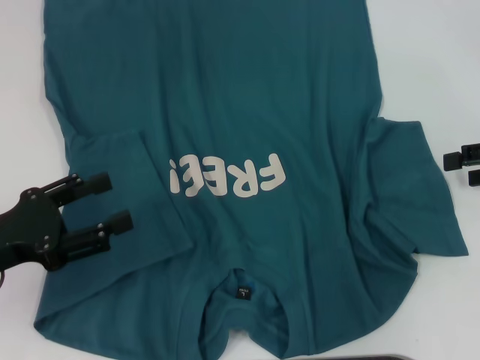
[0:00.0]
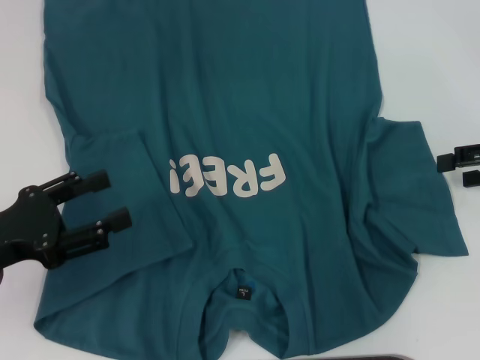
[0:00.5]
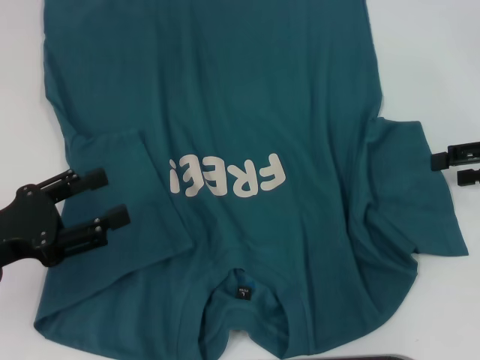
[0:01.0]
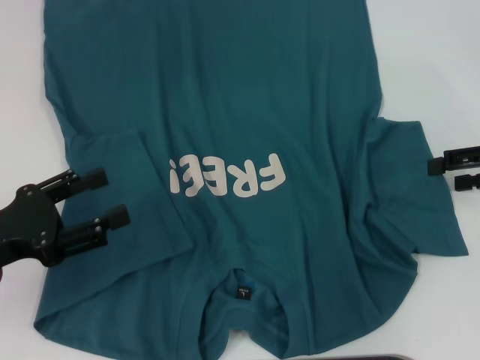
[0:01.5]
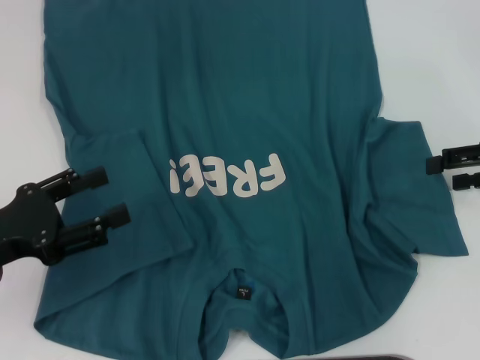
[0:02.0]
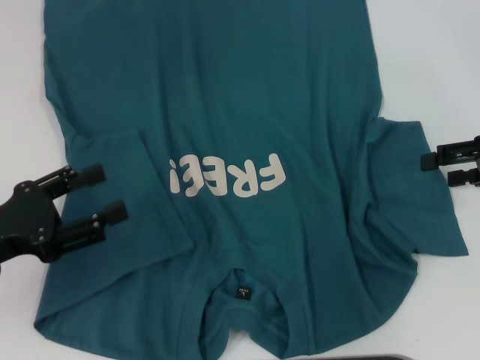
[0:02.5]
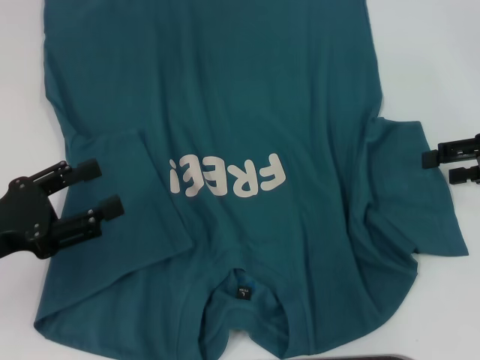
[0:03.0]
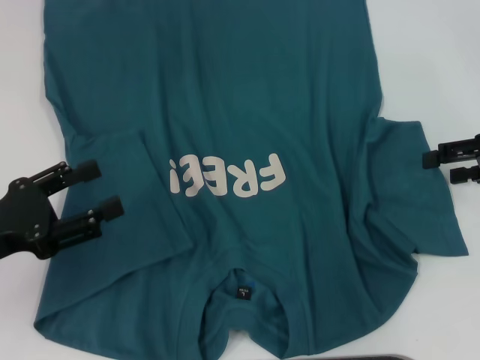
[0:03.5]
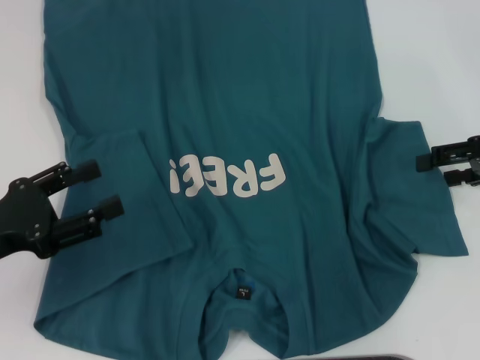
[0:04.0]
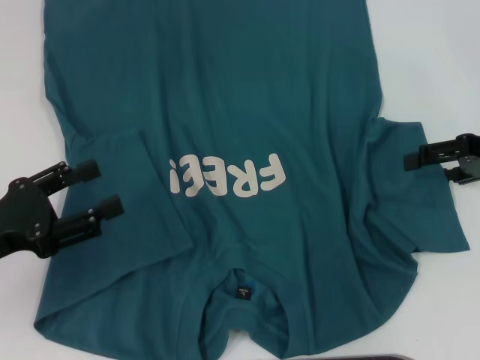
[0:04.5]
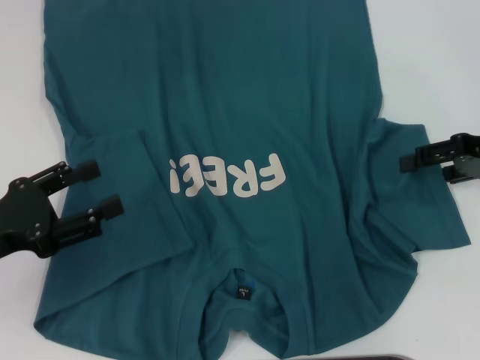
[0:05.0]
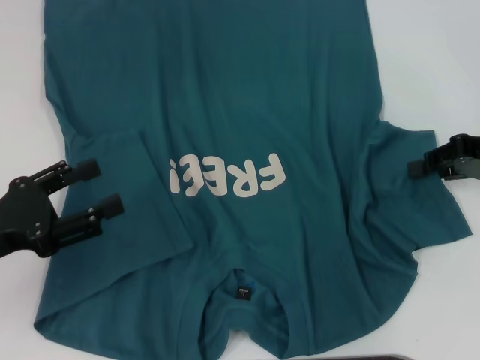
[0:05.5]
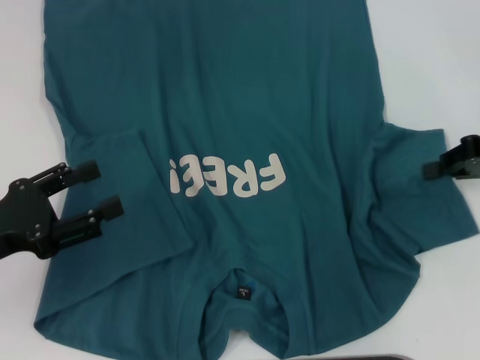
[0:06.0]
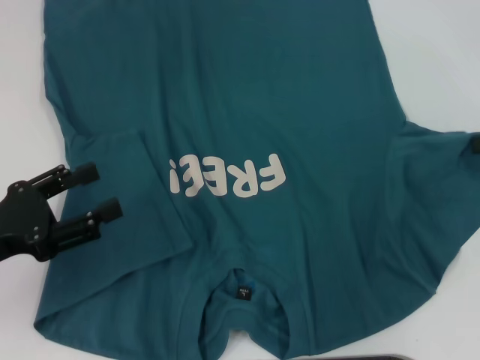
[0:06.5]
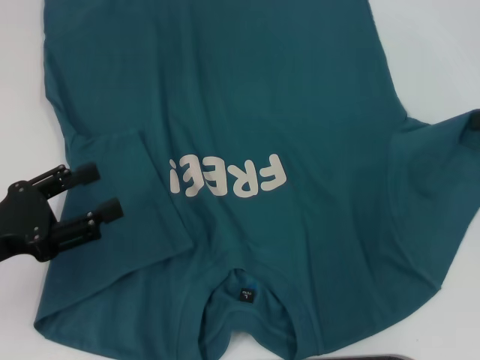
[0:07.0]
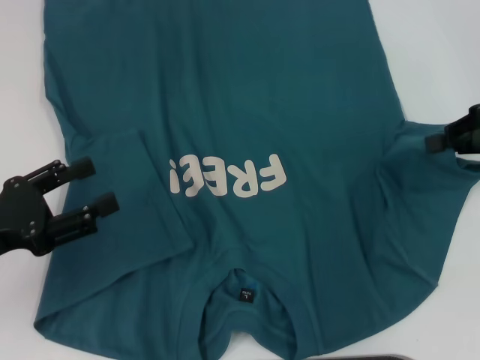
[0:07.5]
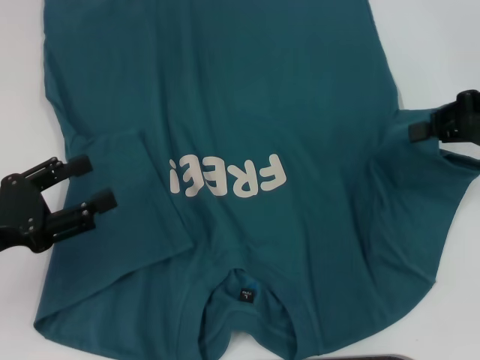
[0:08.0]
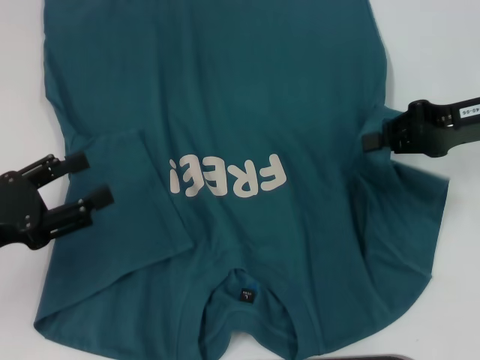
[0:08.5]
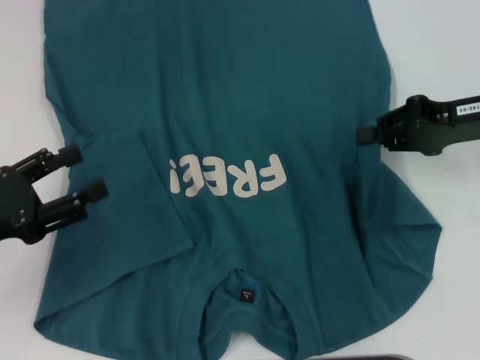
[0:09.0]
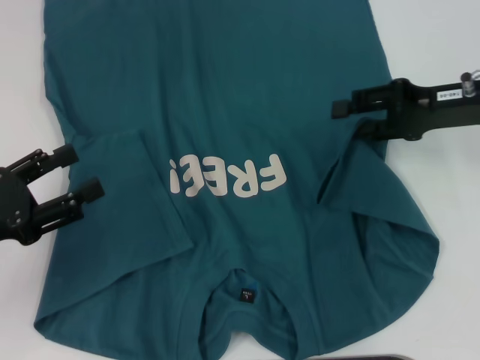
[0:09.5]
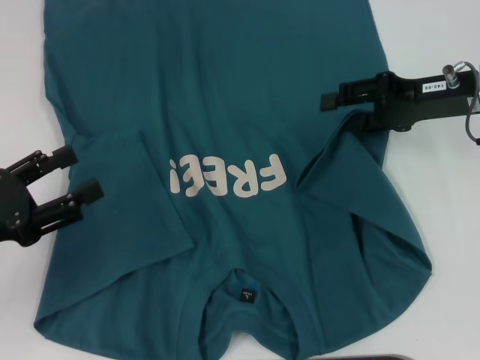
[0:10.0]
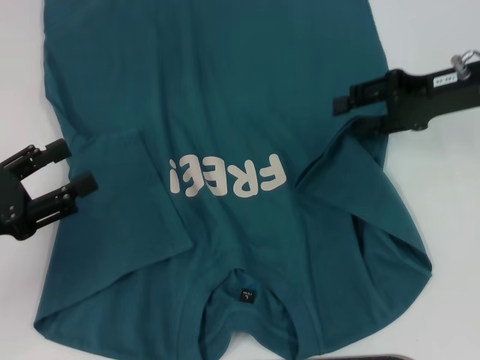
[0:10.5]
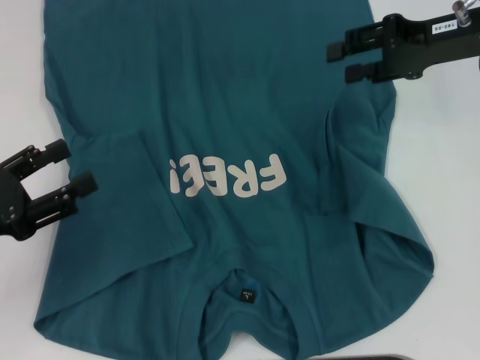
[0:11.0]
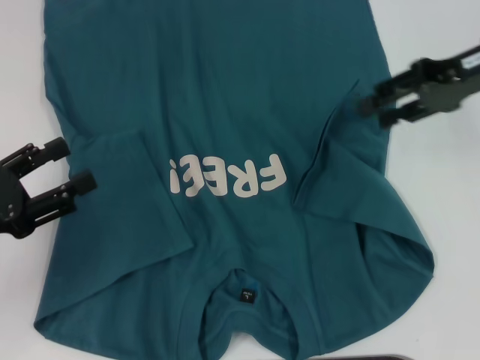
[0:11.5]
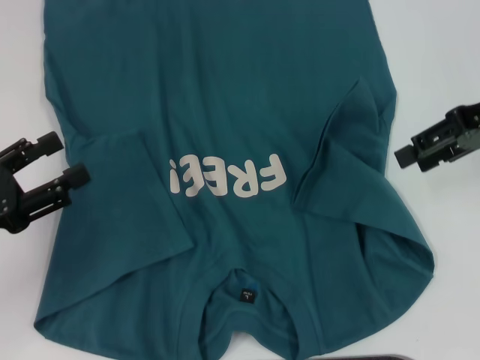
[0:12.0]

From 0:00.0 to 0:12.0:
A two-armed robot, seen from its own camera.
From 0:00.0 to 0:02.0: The grippers stay close to where they were, moving slightly.
From 0:02.0 to 0:04.0: The two grippers keep their place.
From 0:04.0 to 0:06.0: The right gripper closes its fingers.
From 0:06.0 to 0:08.0: The grippers stay close to where they were, moving slightly.
From 0:08.0 to 0:10.0: The right gripper moves to the left, roughly 5 cm, and opens.
From 0:10.0 to 0:12.0: The right gripper goes approximately 5 cm upward.

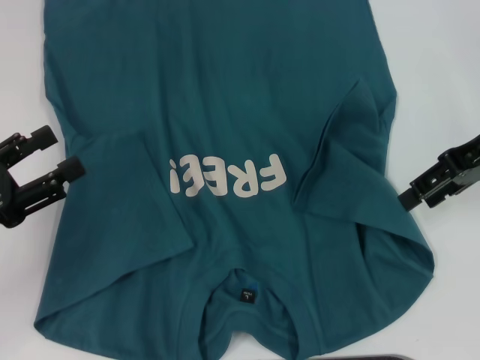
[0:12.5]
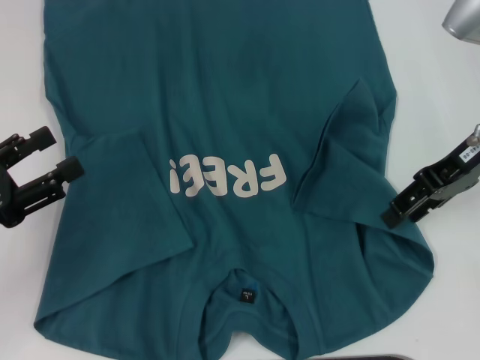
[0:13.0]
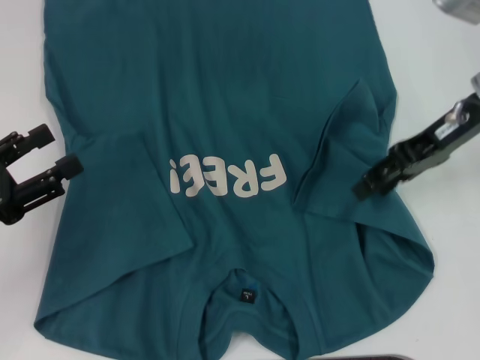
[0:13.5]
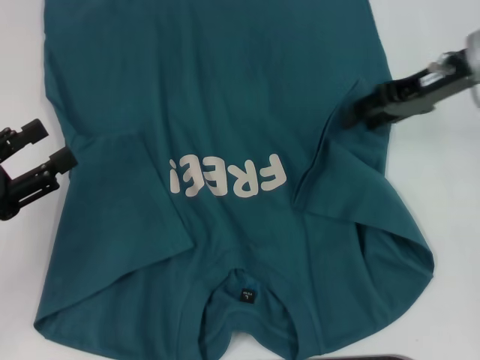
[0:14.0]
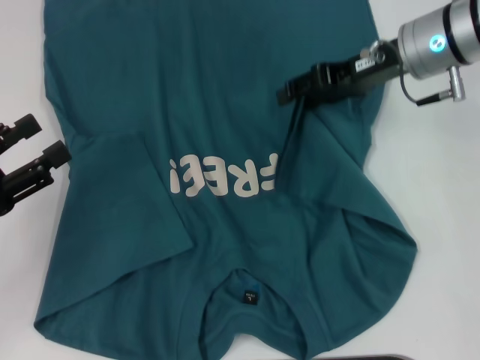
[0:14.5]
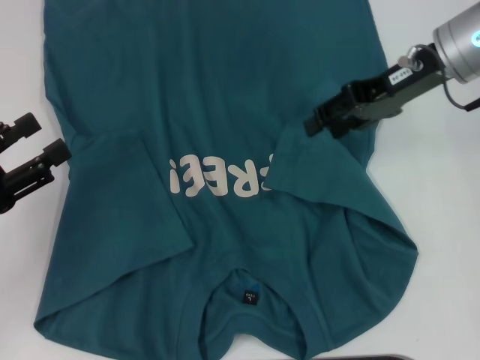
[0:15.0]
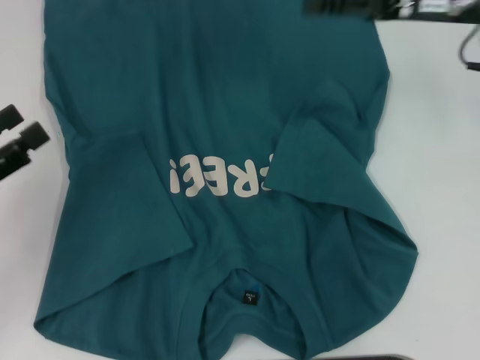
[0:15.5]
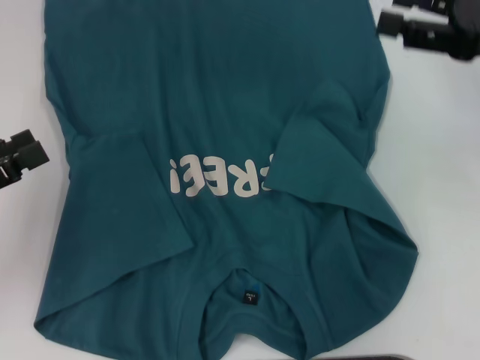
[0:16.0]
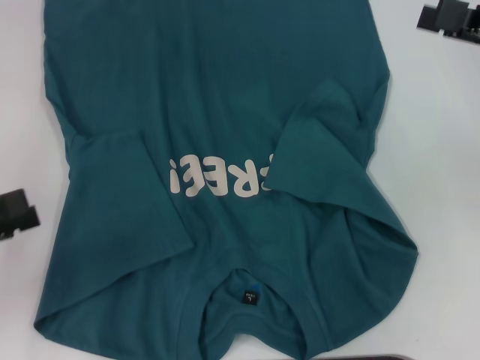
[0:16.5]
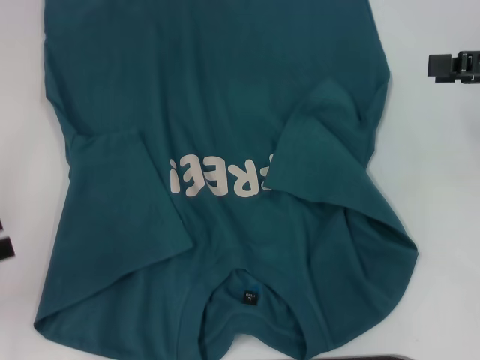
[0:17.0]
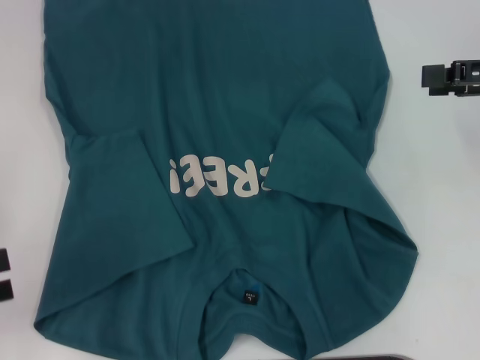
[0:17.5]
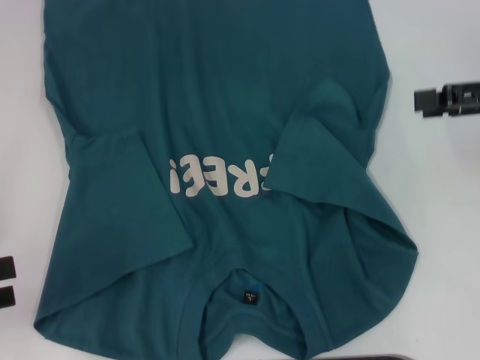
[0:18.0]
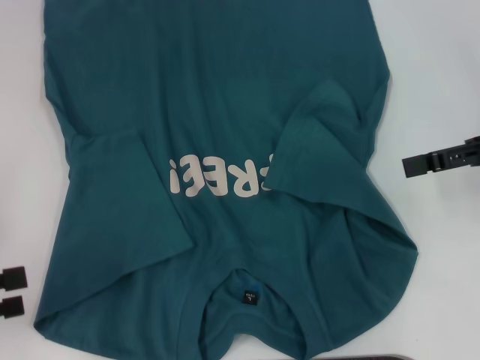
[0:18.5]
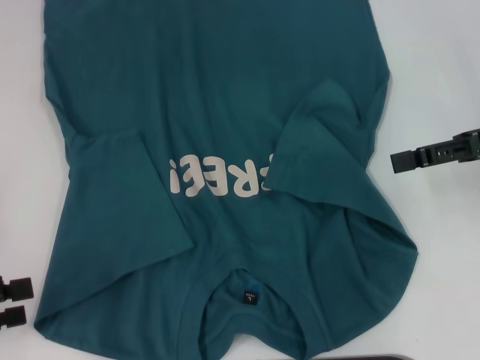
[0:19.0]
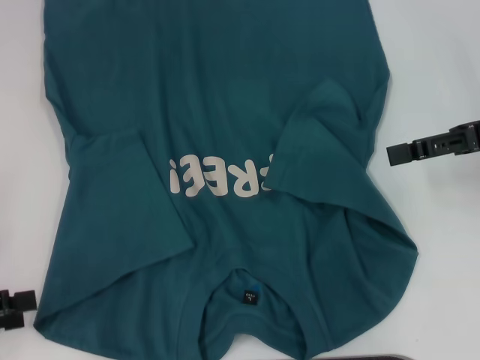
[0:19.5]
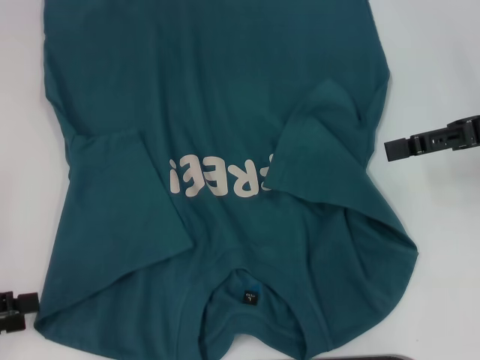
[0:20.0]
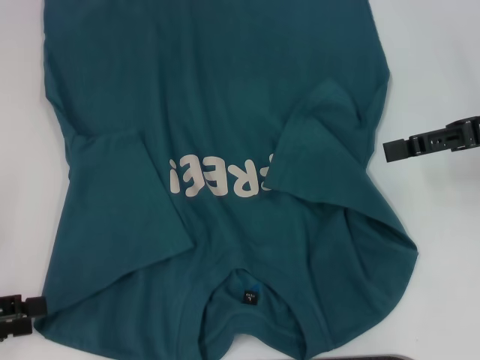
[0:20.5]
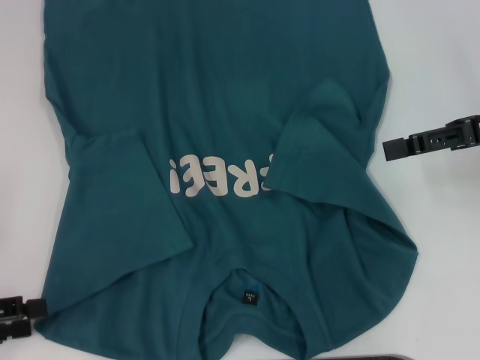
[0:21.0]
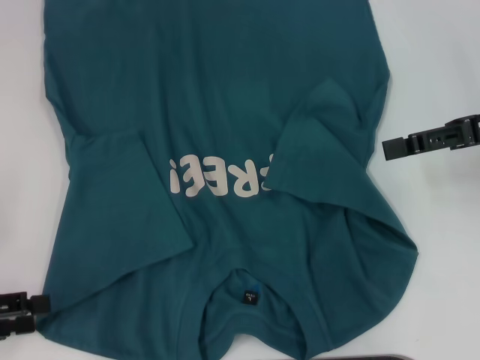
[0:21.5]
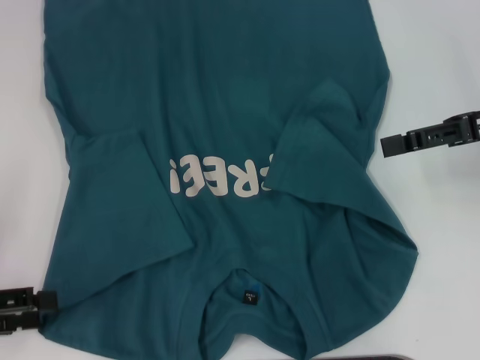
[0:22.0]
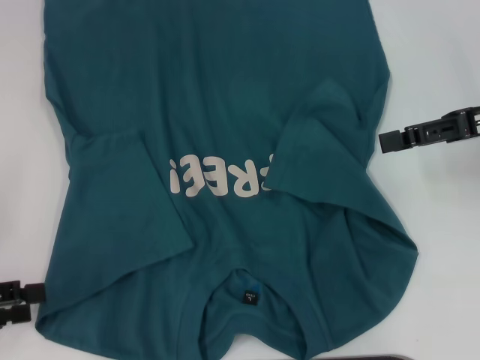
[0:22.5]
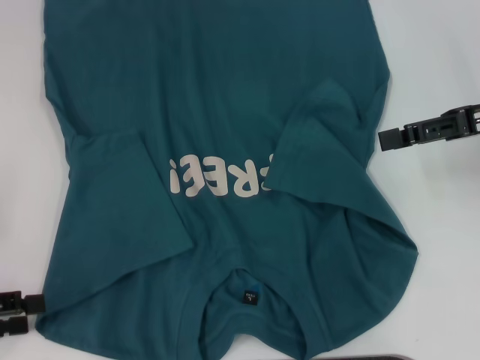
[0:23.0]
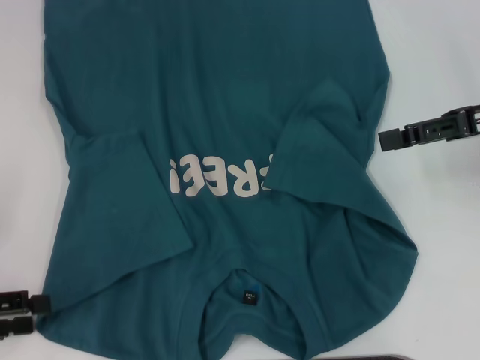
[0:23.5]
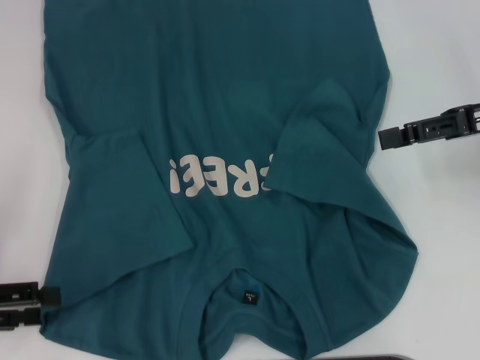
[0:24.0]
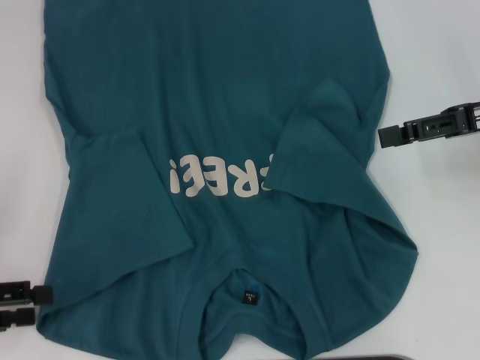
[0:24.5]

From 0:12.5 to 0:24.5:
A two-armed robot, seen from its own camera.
From 0:12.5 to 0:14.5: The right gripper heads to the left and forward, covering roughly 10 cm.
From 0:14.5 to 0:16.5: The right gripper travels to the right and backward by some 15 cm. Meanwhile the left gripper moves about 5 cm.
From 0:18.5 to 0:24.5: The grippers stay close to where they were, moving slightly.

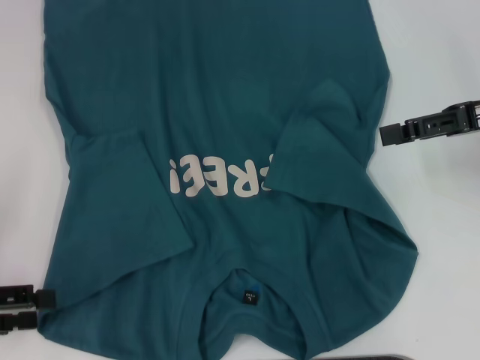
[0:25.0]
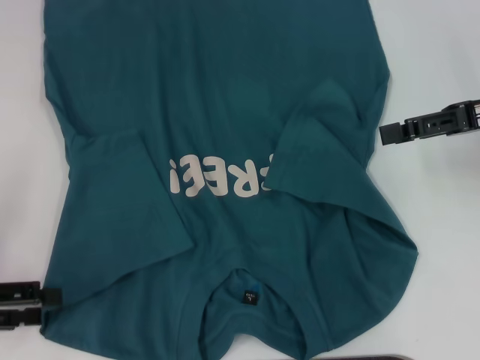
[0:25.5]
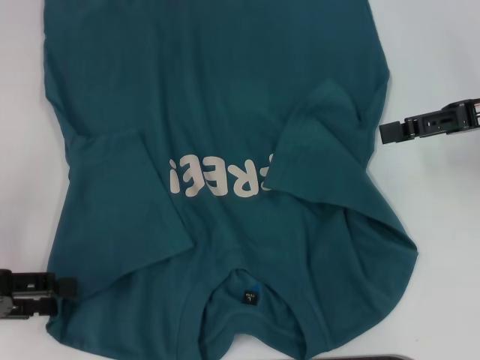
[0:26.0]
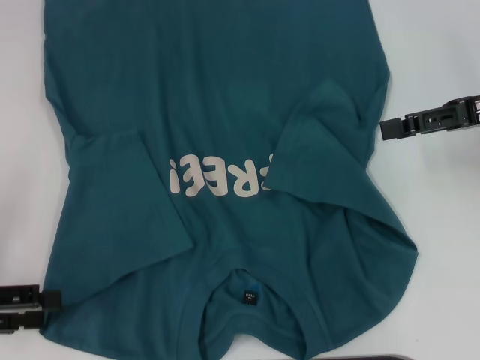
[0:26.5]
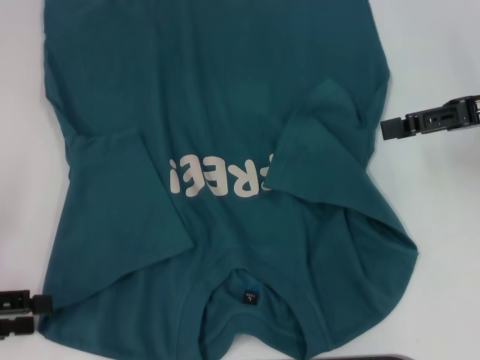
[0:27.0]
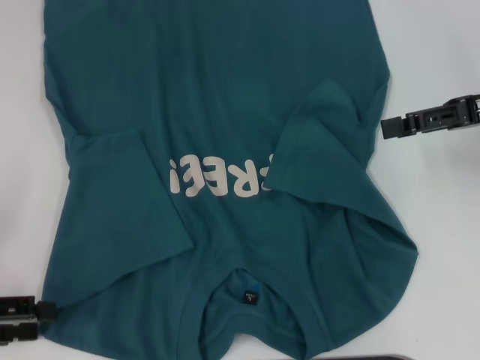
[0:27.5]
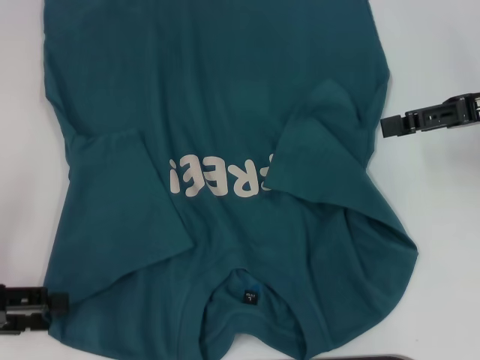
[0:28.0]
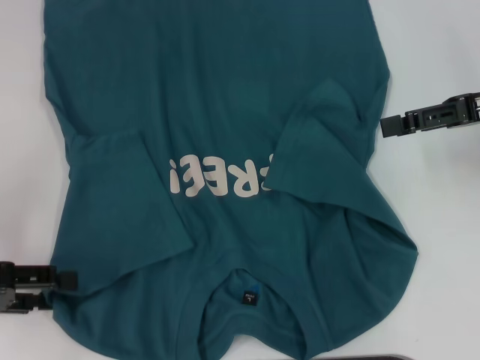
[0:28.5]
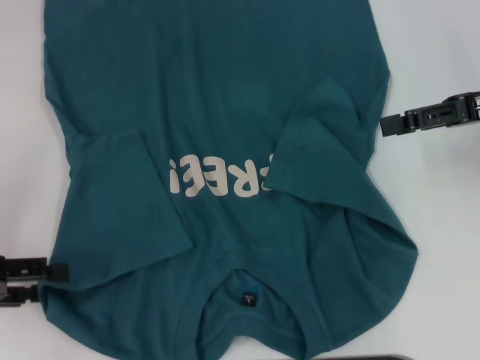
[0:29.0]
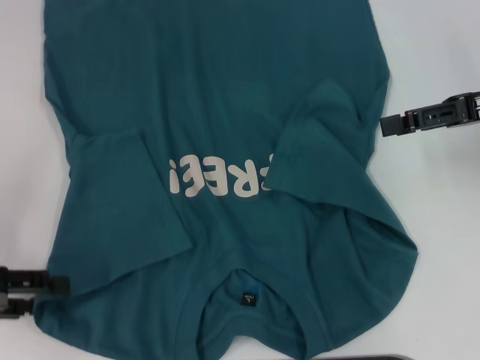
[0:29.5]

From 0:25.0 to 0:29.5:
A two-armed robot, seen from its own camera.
From 0:25.0 to 0:29.5: The grippers move only a little.
